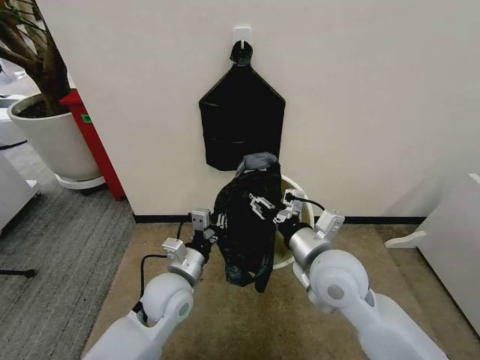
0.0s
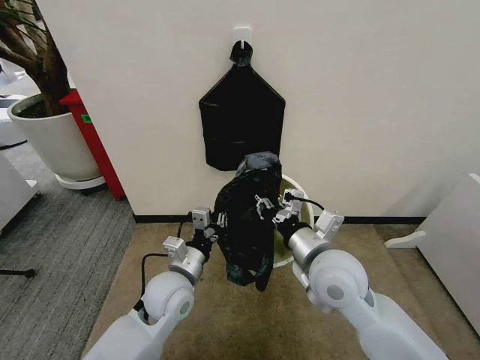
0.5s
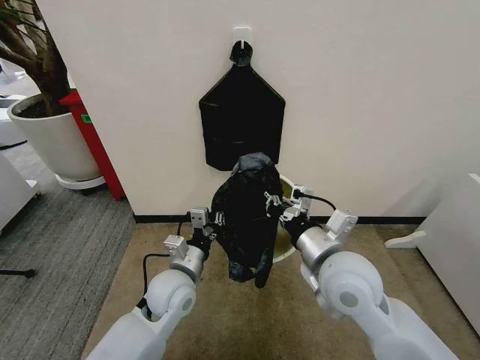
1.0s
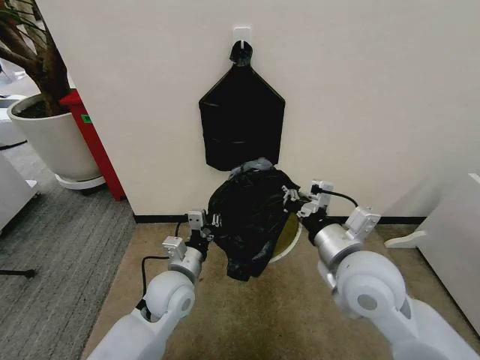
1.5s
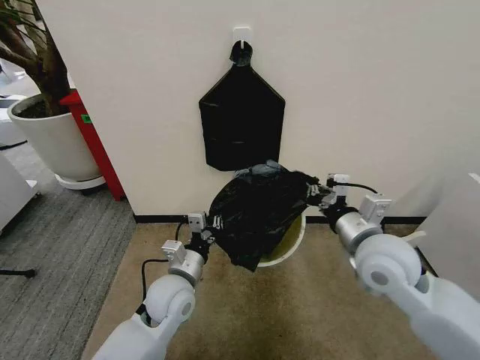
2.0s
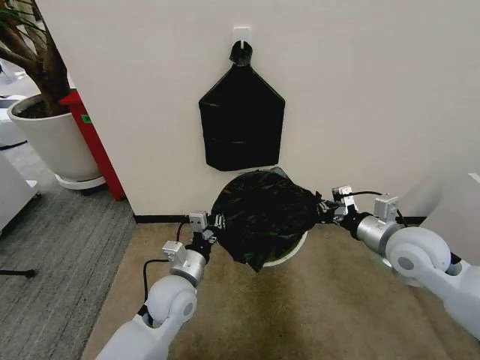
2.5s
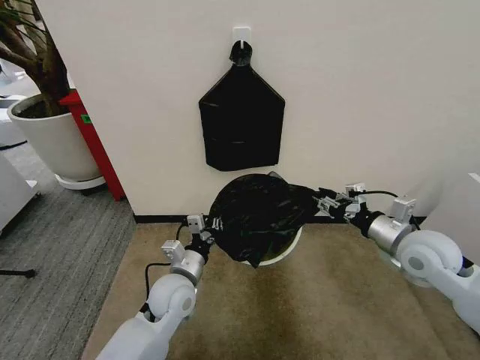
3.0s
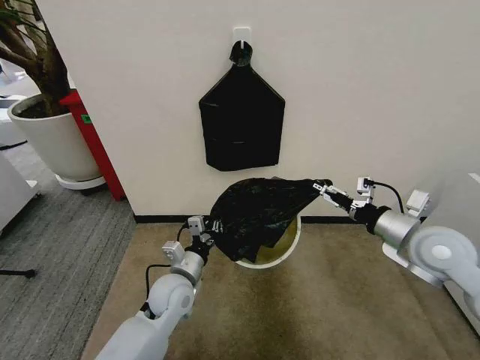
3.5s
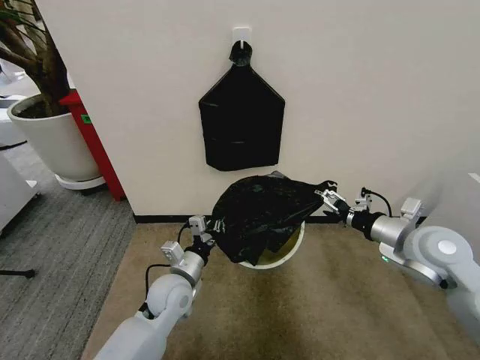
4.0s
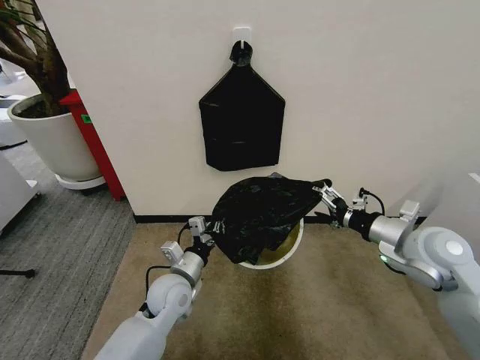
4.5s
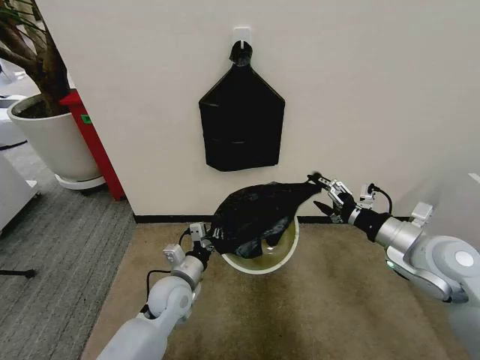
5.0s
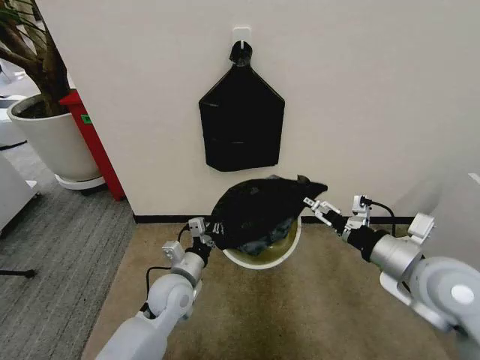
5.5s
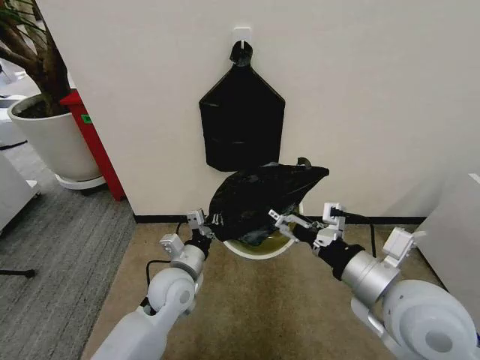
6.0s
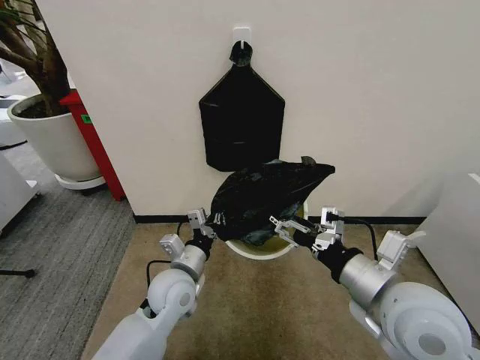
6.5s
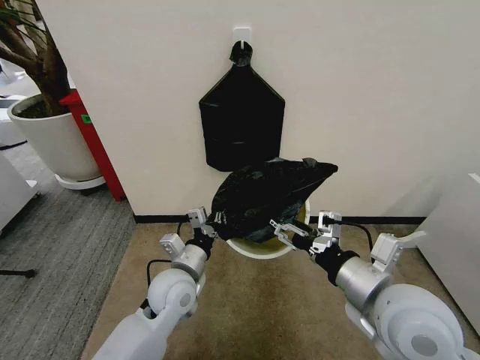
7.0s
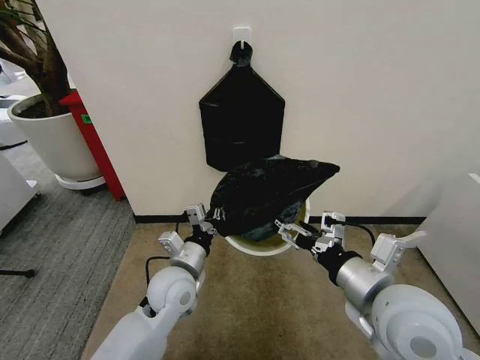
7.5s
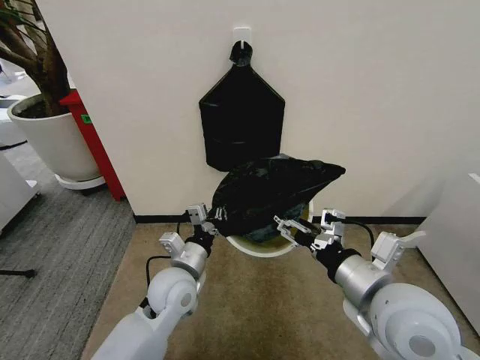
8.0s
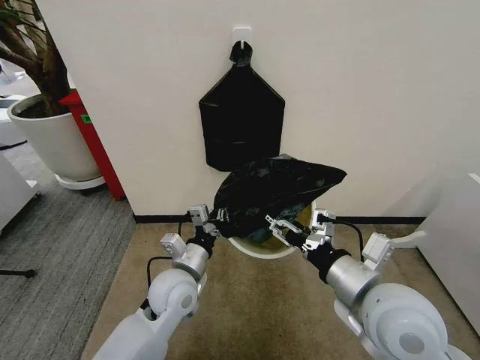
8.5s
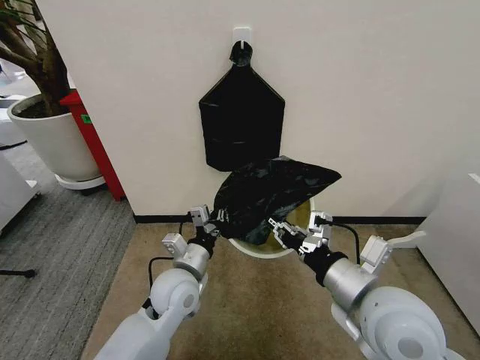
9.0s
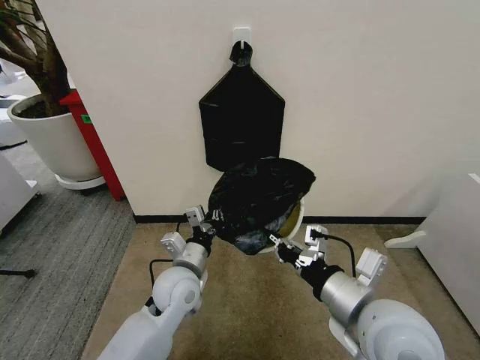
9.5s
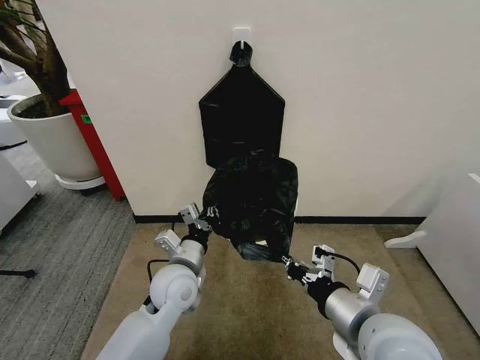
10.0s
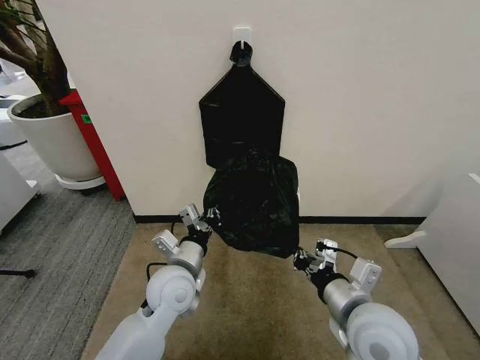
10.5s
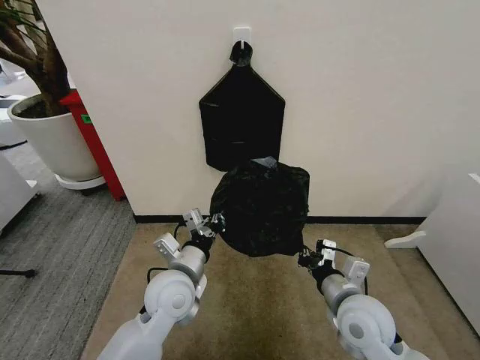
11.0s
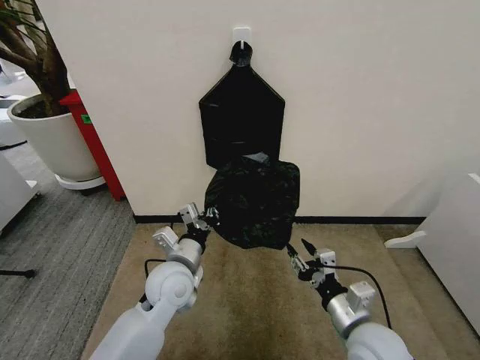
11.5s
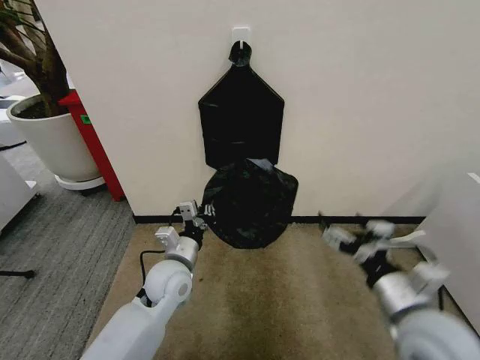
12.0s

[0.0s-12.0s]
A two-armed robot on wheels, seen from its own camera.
Task of the whole recording: Place the garbage bag over the trash bin.
0.0s to 2.0s: The right gripper travels to the right by about 10 cm, and closes.
2.0s to 4.0s: The right gripper goes some 10 cm to the right, and opens.
4.0s to 6.0s: The right gripper travels backward and to the left by about 15 cm.
6.0s to 8.0s: The grippers make only small movements.
8.0s to 10.0s: The right gripper closes.
10.0s to 12.0s: The right gripper shifts approximately 5 cm to the right, reaches roughly 10 cm downward, then returns, and opens up.

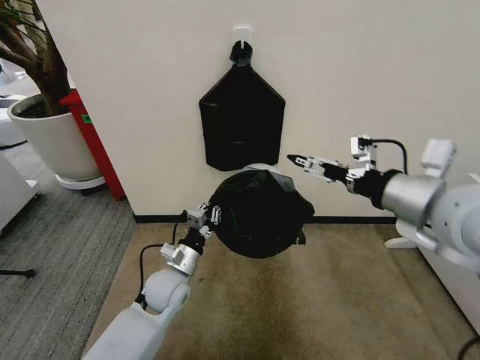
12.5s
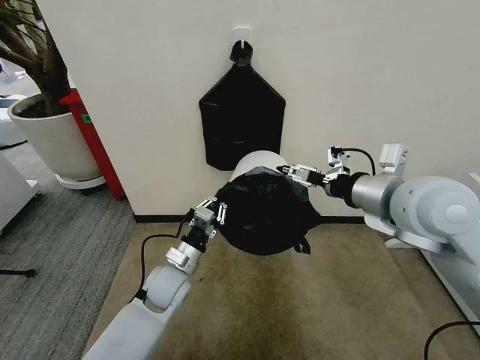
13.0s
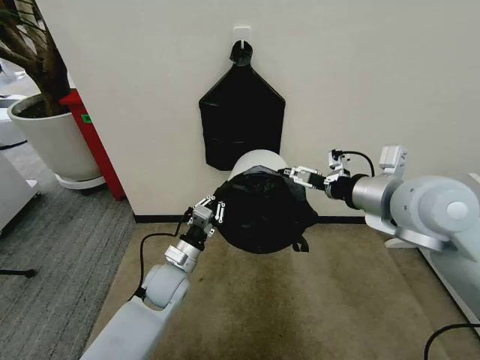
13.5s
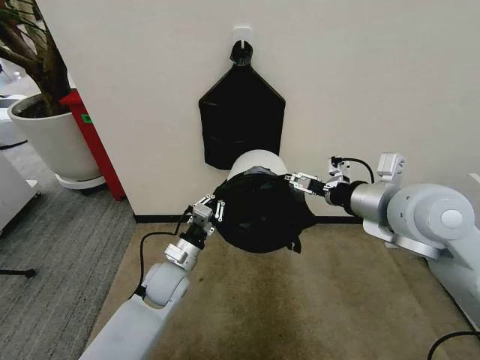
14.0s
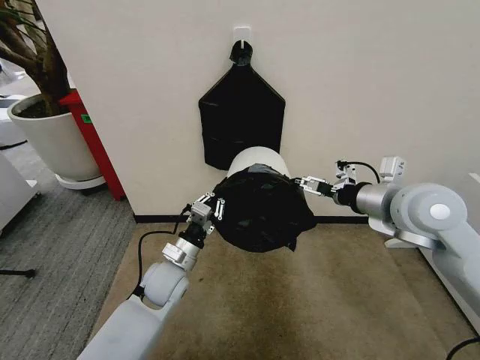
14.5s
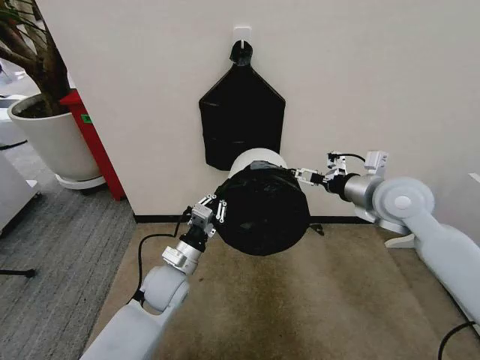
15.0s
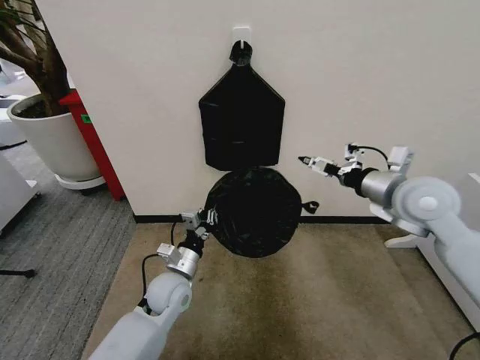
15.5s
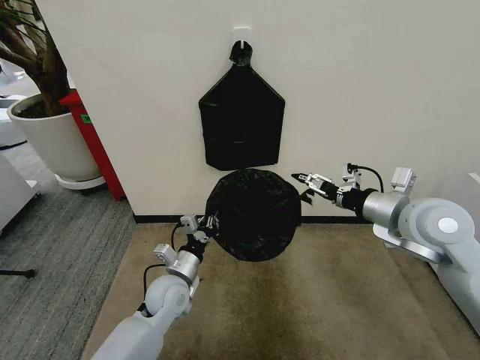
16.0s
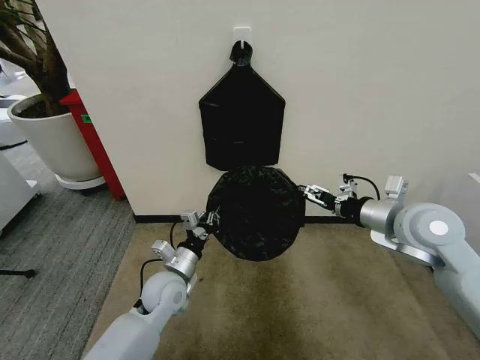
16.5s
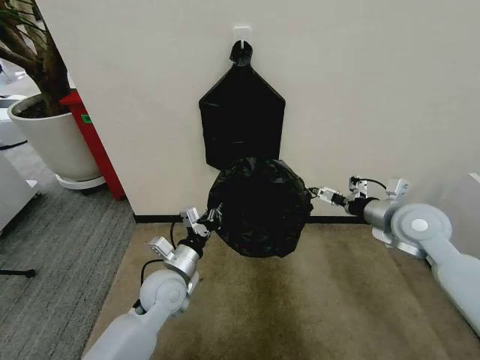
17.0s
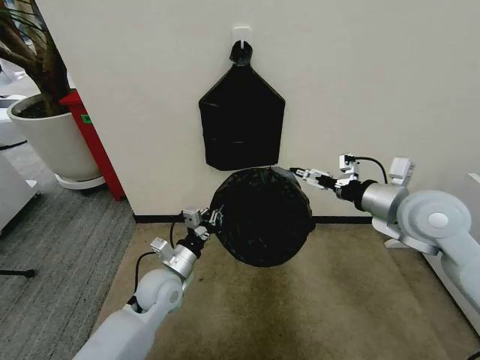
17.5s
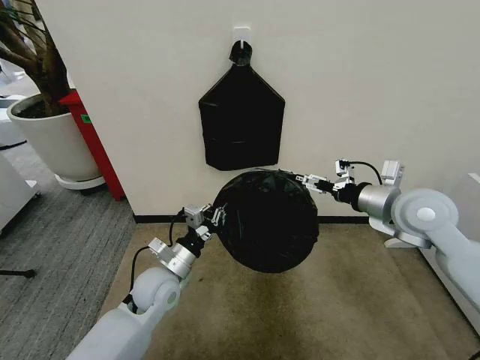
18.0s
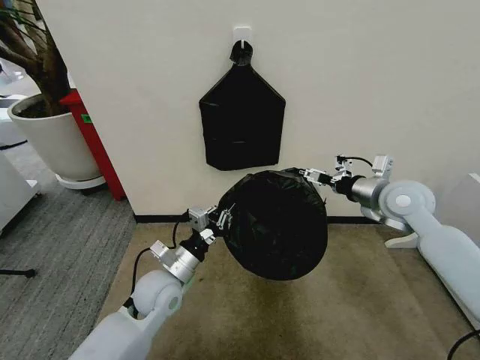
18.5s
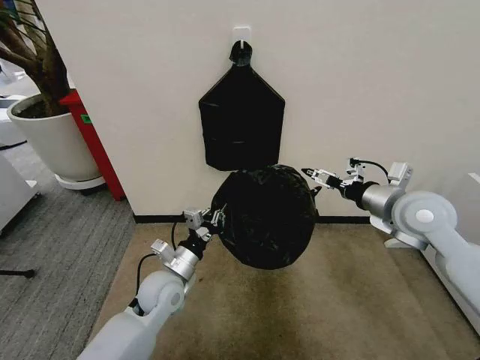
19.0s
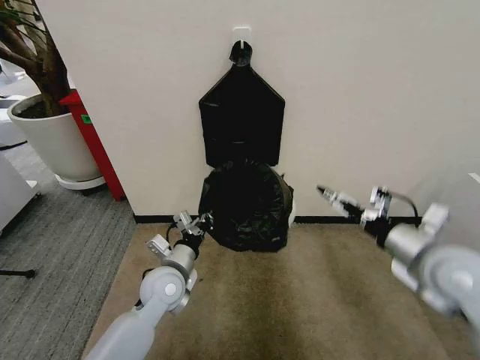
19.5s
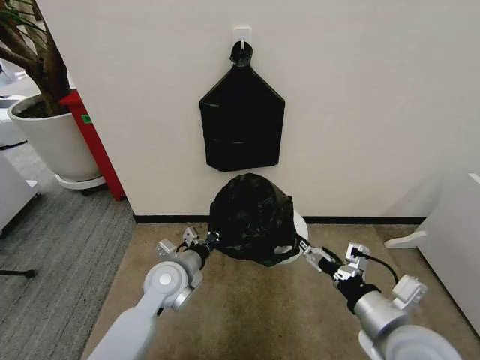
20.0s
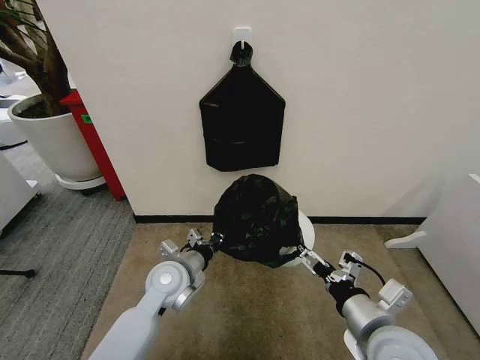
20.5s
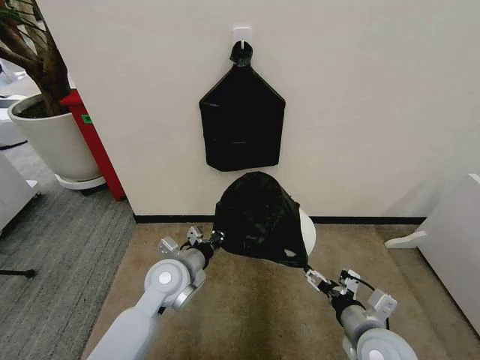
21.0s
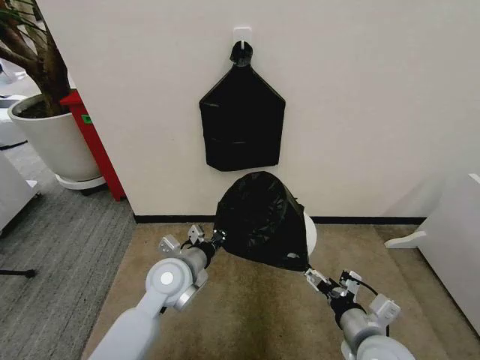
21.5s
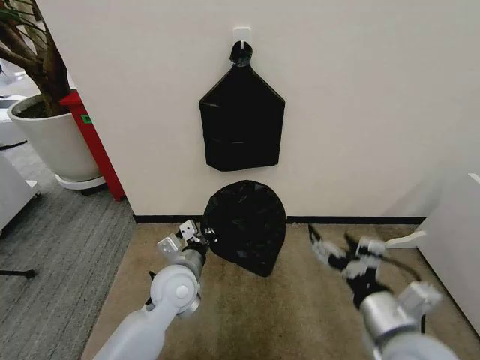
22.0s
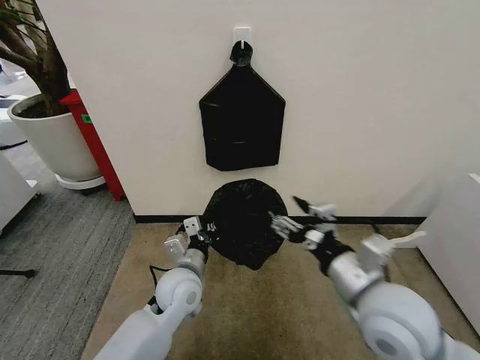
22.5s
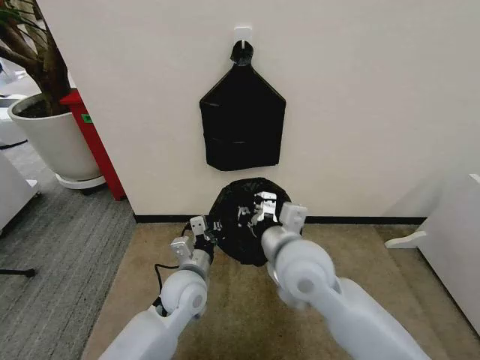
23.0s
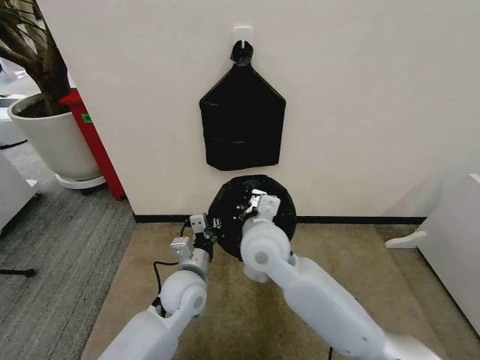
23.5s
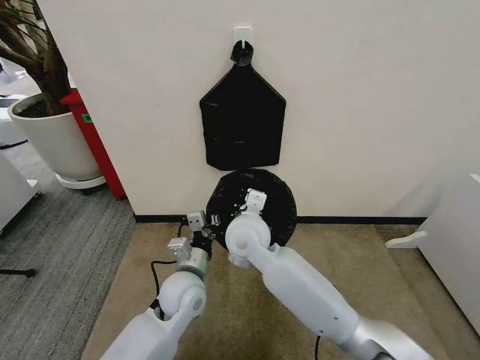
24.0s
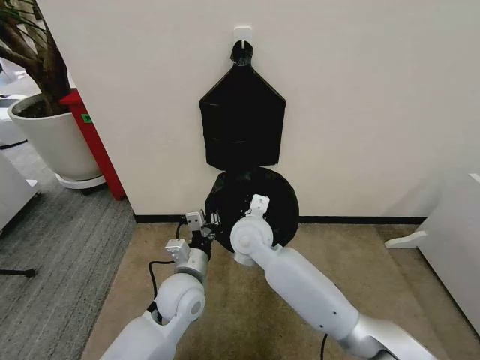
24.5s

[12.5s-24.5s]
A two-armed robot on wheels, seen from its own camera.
Task of the whole recording: Place the garbage bag over the trash bin.
12.5s to 14.5s: The right gripper is displaced forward and downward by some 10 cm.
16.5s to 18.5s: The right gripper heads forward, covering approximately 10 cm.
18.5s to 20.5s: The right gripper shifts about 25 cm backward.
20.5s to 22.5s: The right gripper shifts about 10 cm upward.
22.5s to 24.5s: The right gripper goes approximately 25 cm to the left and forward, and closes its fingers.

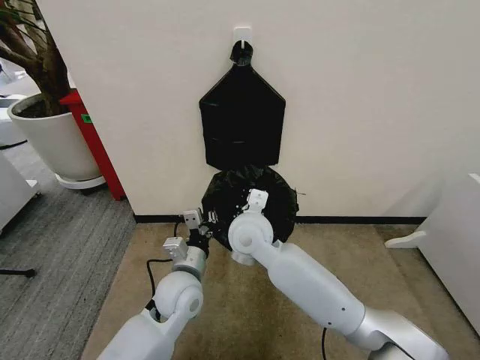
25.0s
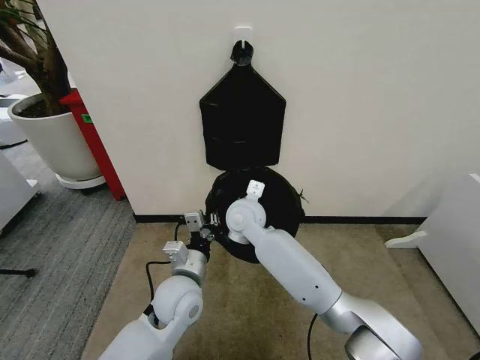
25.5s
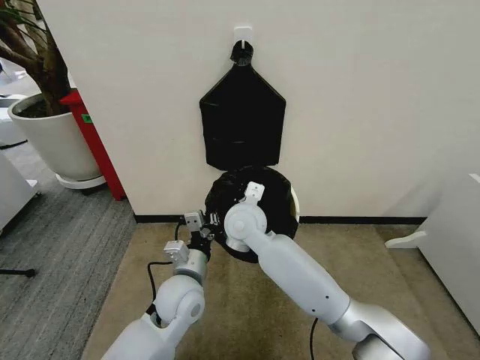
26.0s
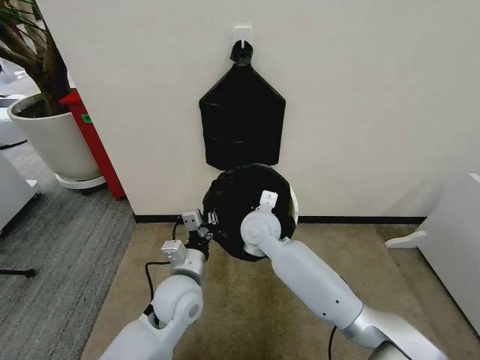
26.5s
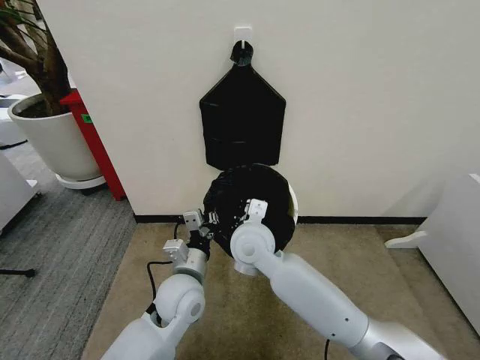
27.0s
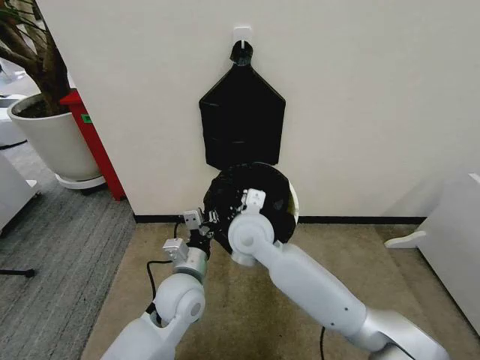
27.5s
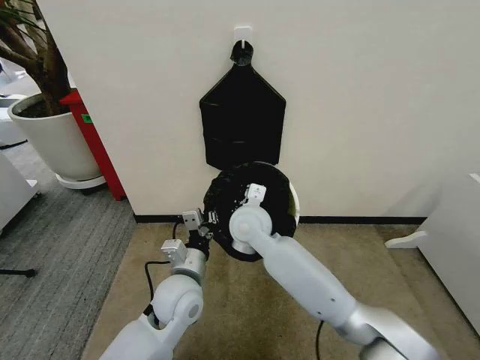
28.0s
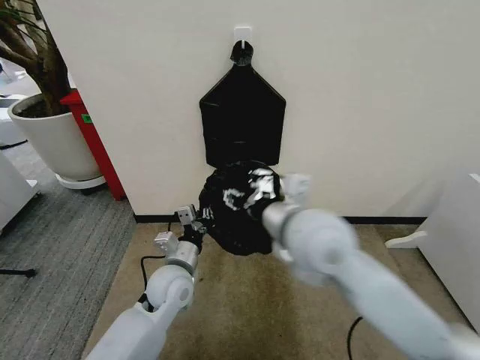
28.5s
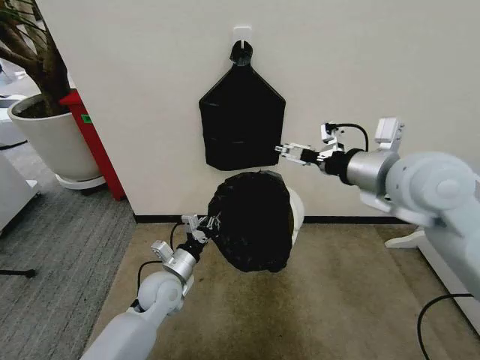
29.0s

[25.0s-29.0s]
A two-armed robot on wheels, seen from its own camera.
Task of the whole recording: Place the garbage bag over the trash bin.
25.0s to 27.0s: The right gripper reaches about 5 cm forward, then returns.
27.0s to 29.0s: The left gripper moves to the left and downward, about 10 cm. Meanwhile the right gripper travels to the right and upward by about 30 cm, and opens its fingers.
